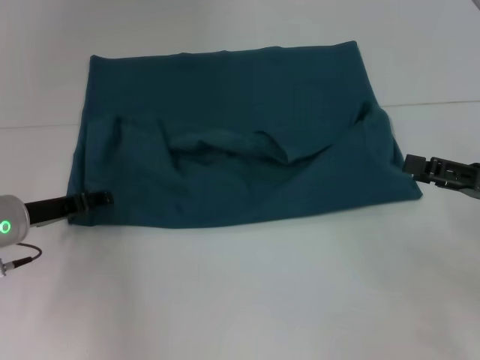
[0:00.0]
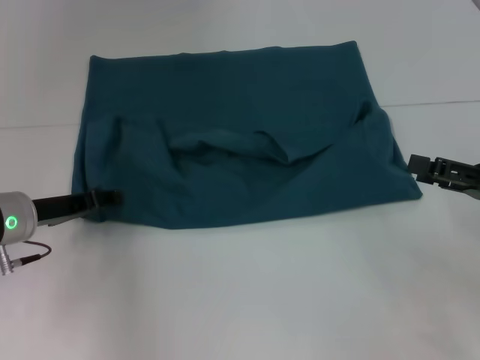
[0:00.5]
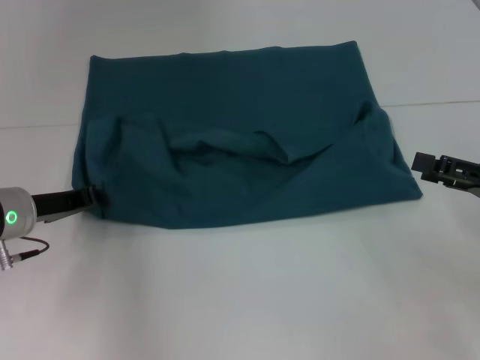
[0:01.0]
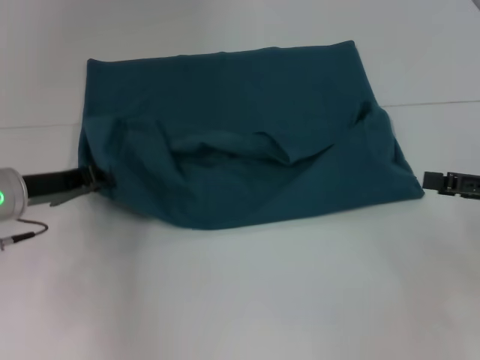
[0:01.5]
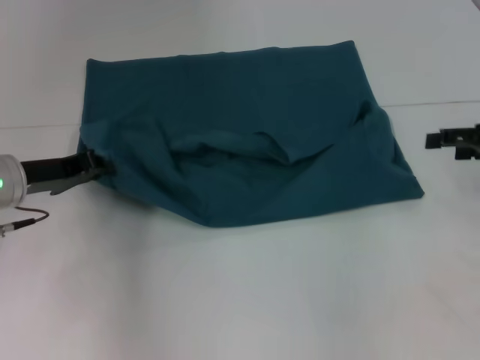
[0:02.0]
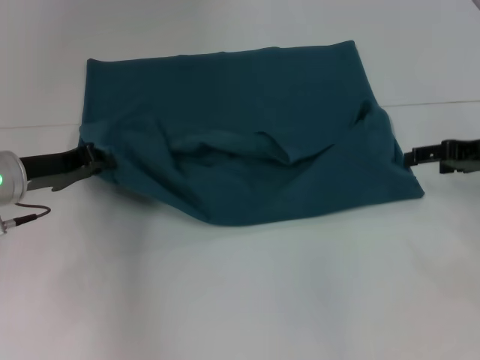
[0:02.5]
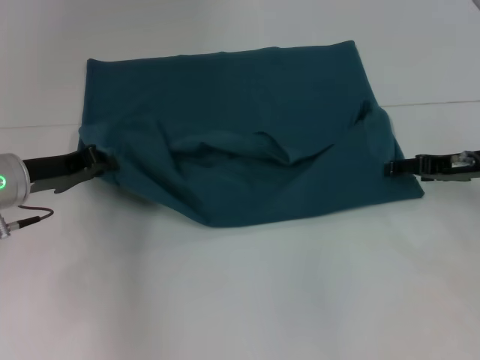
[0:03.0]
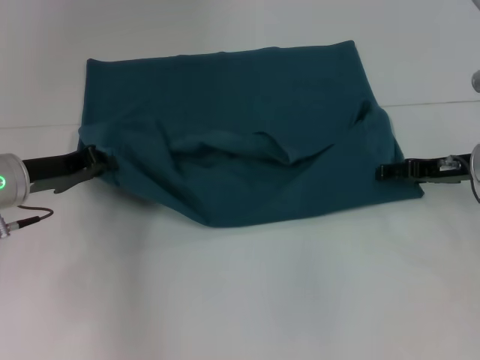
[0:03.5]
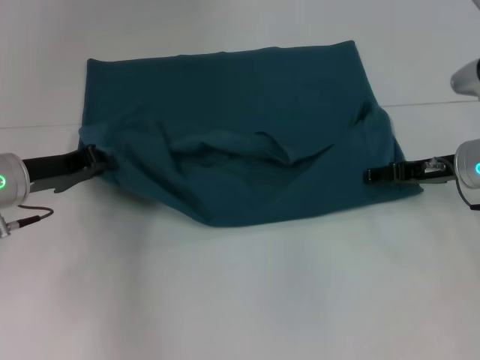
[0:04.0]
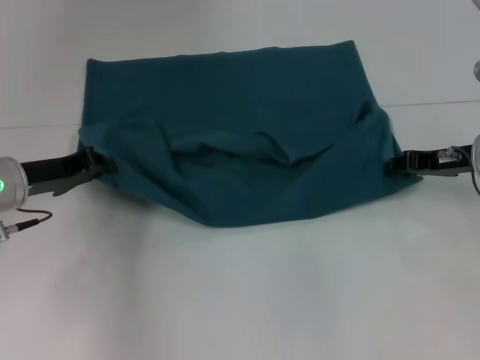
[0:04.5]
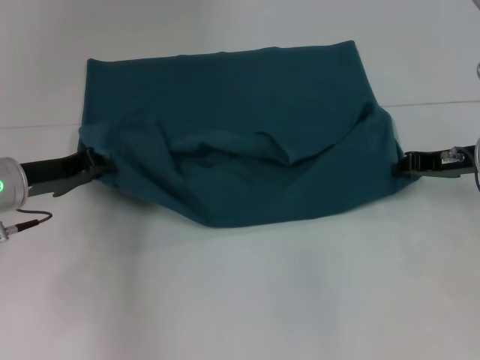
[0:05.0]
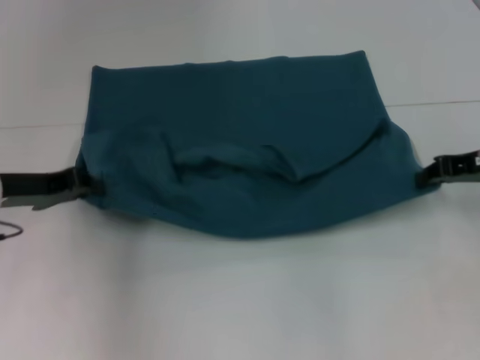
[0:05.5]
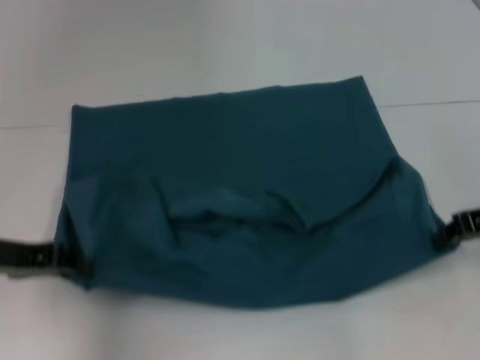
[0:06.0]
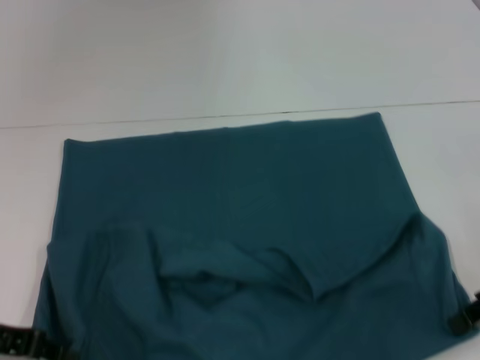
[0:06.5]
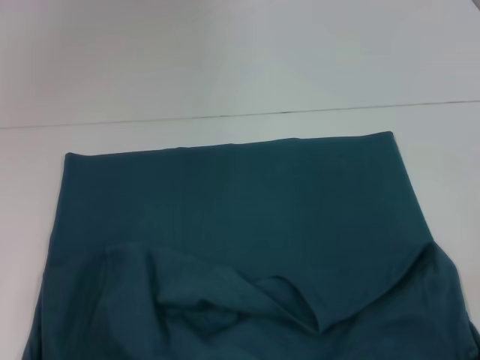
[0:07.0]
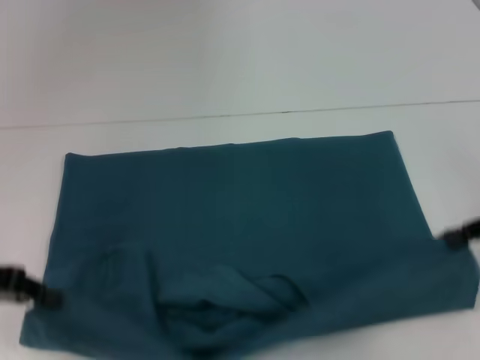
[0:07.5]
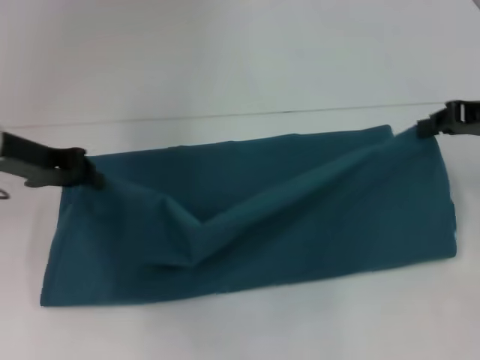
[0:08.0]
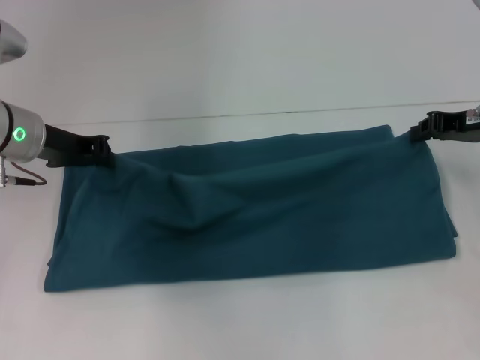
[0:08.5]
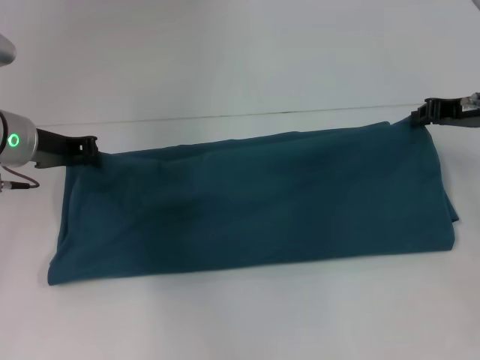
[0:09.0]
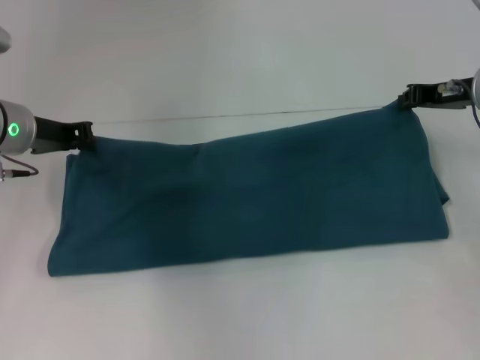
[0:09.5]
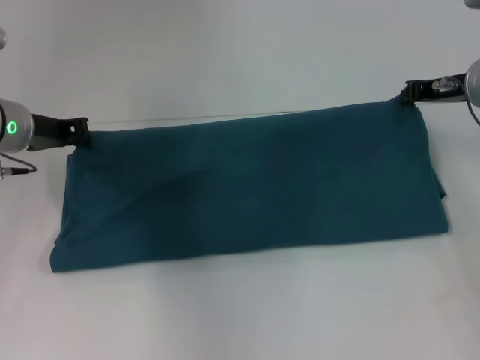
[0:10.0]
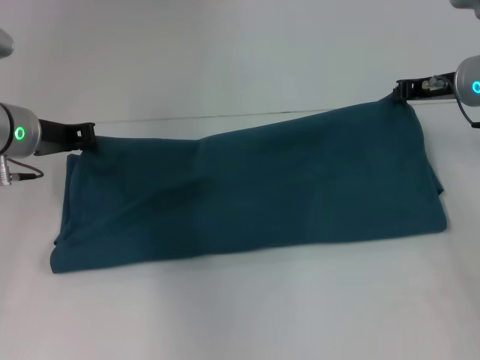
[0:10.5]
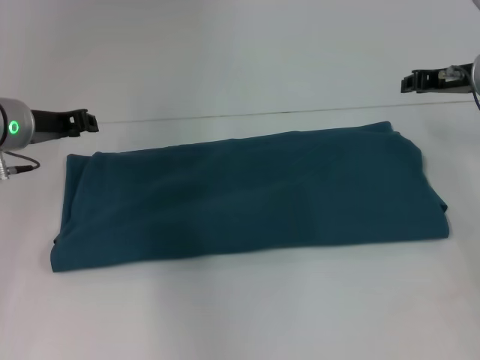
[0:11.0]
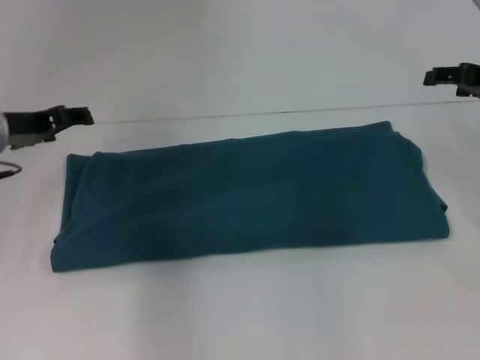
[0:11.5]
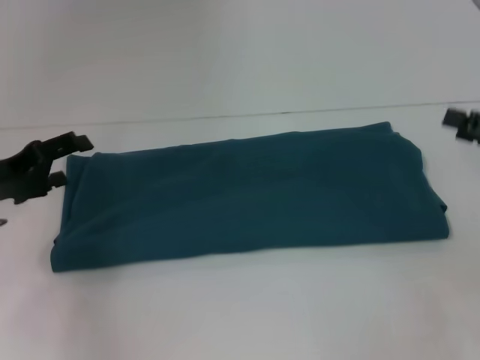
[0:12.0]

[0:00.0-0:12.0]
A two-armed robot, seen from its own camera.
Step, 0:00.0 to 0:06.5: Pull the clothes with your left hand.
Step, 0:00.0 to 0:06.5: Pull the clothes with your right hand.
Step, 0:07.0 to 0:10.5: Fold the clothes to the right.
0:00.0 to 0:02.0: The left gripper closes. The right gripper travels forward by approximately 10 cm.
0:02.0 to 0:04.0: The right gripper moves to the left and downward, some 10 cm.
0:04.0 to 0:06.0: The two grippers go roughly 5 cm backward. The right gripper closes its fingers.
0:06.0 to 0:08.0: The right gripper goes roughly 5 cm upward, and reaches some 10 cm backward, then returns. The left gripper is displaced forward by some 10 cm.
0:08.0 to 0:10.0: The left gripper shifts by some 5 cm. Meanwhile the right gripper goes roughly 5 cm forward.
0:10.0 to 0:12.0: The left gripper shifts some 10 cm backward and to the left, and opens. Meanwhile the right gripper goes roughly 20 cm backward and to the right, and opens.

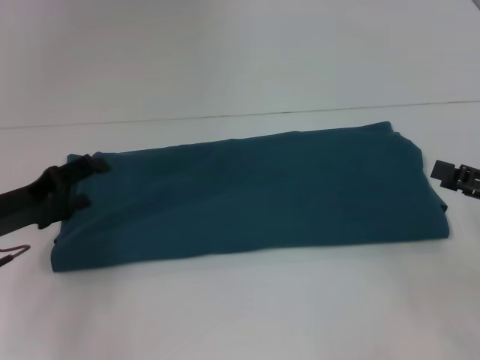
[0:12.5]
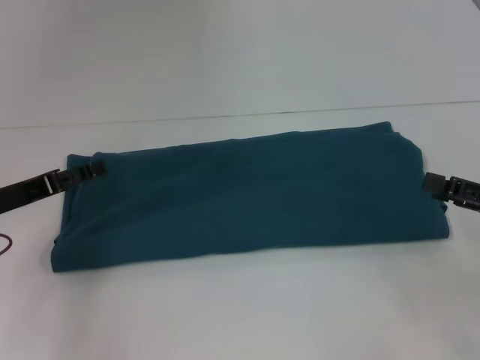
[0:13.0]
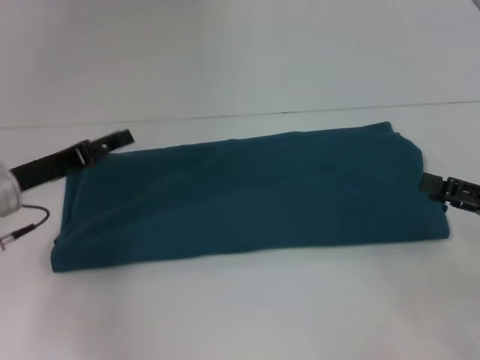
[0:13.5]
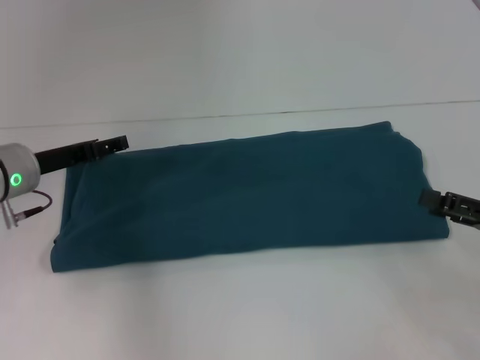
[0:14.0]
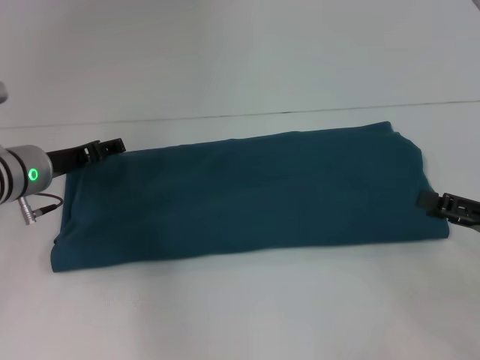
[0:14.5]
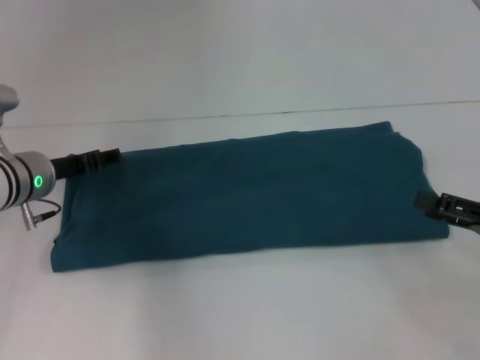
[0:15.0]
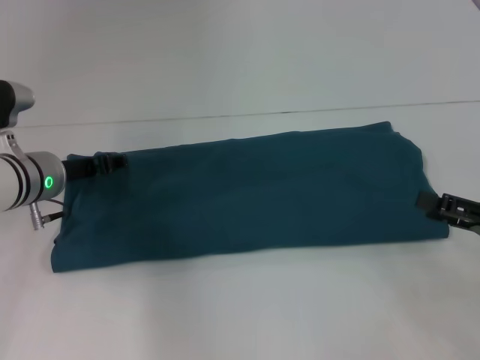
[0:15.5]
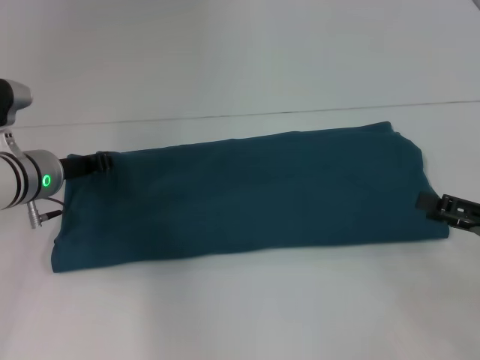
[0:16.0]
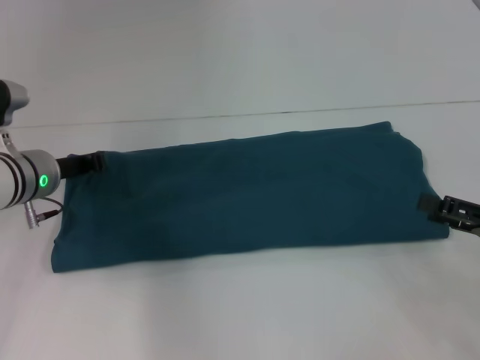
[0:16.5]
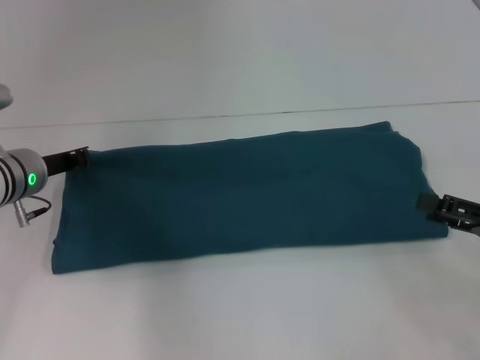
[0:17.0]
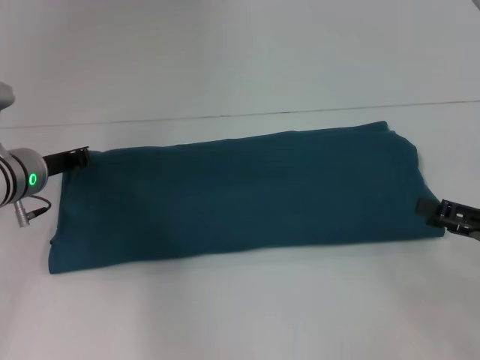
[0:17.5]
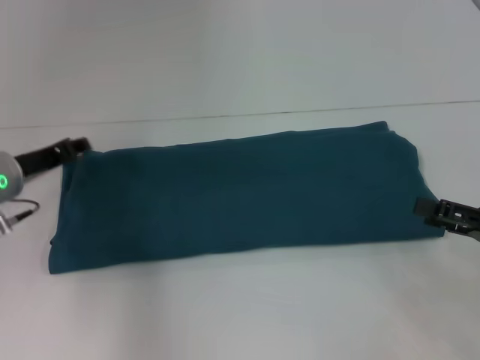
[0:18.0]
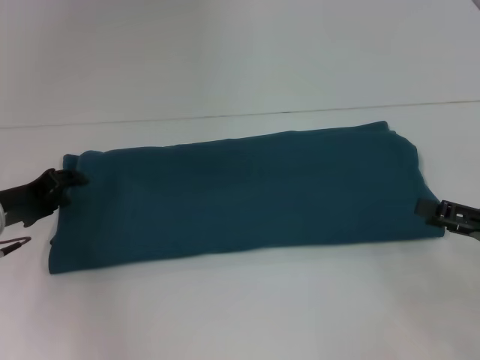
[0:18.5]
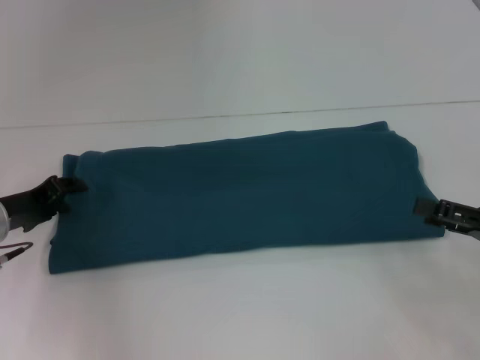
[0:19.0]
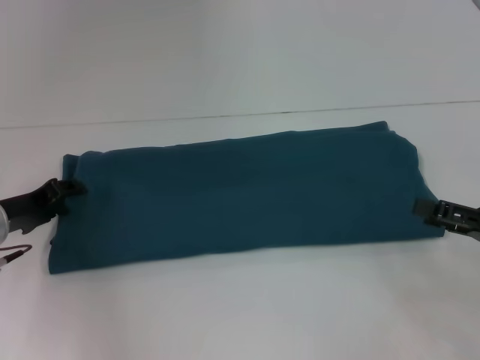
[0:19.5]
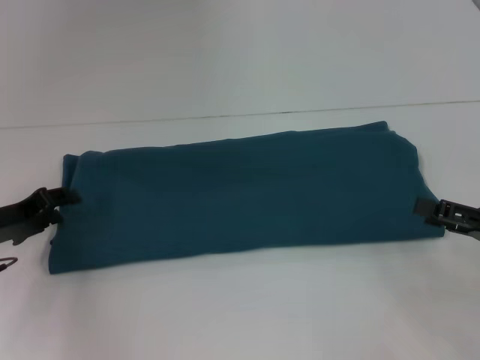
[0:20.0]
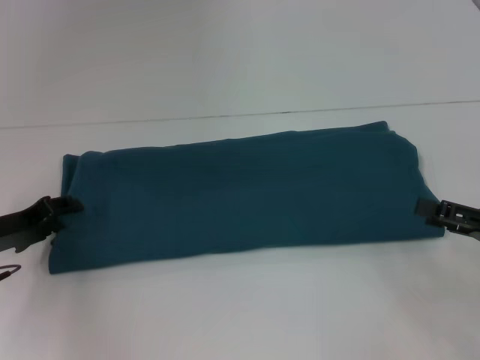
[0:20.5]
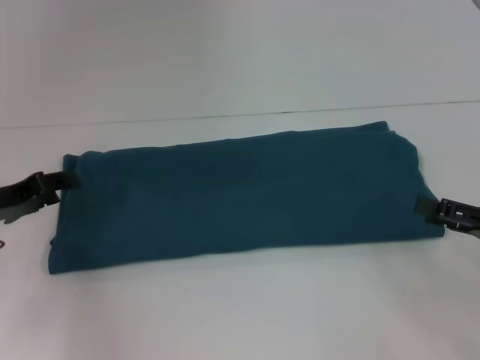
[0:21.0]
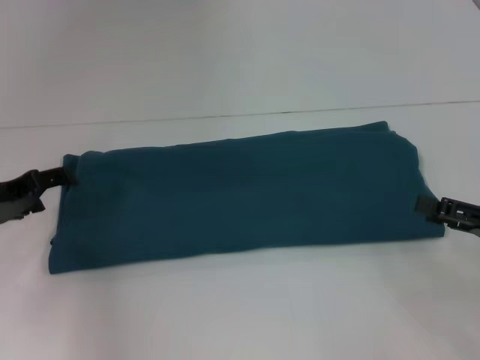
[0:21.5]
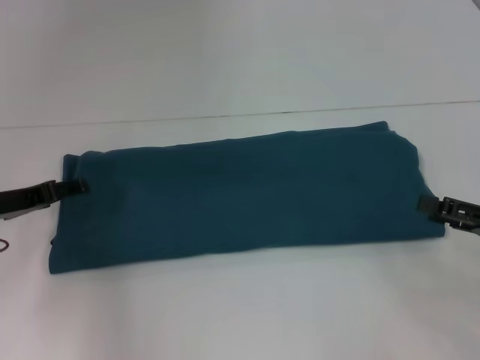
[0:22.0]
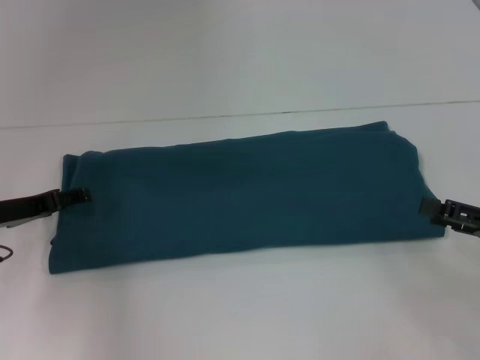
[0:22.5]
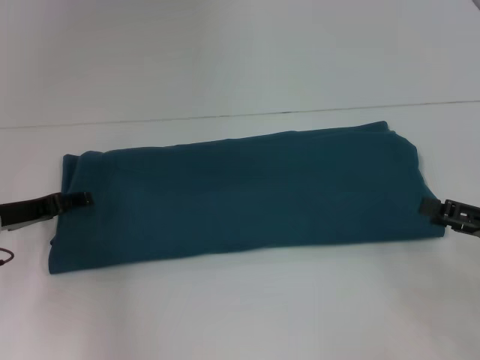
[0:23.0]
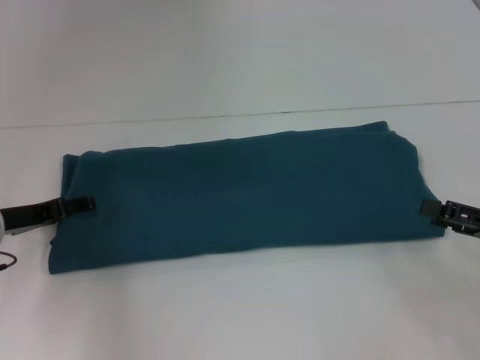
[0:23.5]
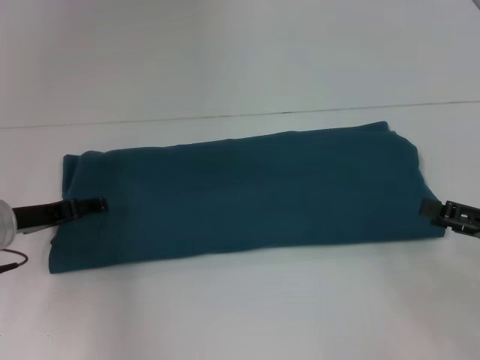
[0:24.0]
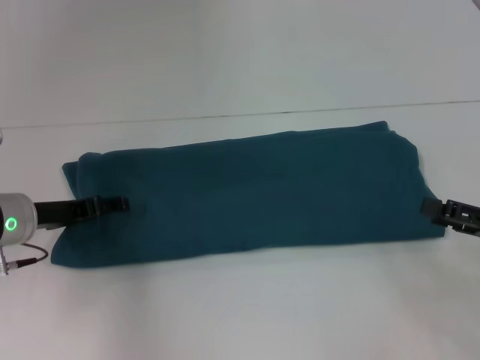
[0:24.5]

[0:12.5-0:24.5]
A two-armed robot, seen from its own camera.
0:12.5 to 0:14.5: The left gripper goes approximately 10 cm forward and to the right.
0:14.5 to 0:16.5: The left gripper closes its fingers.
0:16.5 to 0:18.5: The left gripper travels to the left and backward by some 10 cm, and opens its fingers.
0:18.5 to 0:20.5: There are only small adjustments of the grippers.
0:20.5 to 0:22.5: The left gripper opens.
0:22.5 to 0:24.5: The grippers make only small movements.

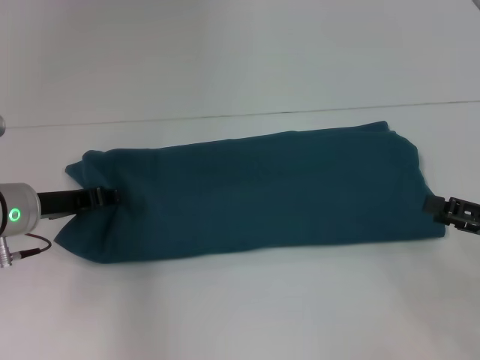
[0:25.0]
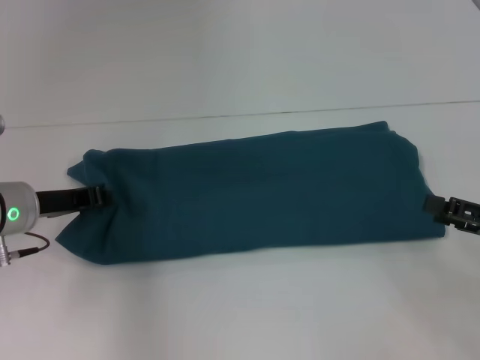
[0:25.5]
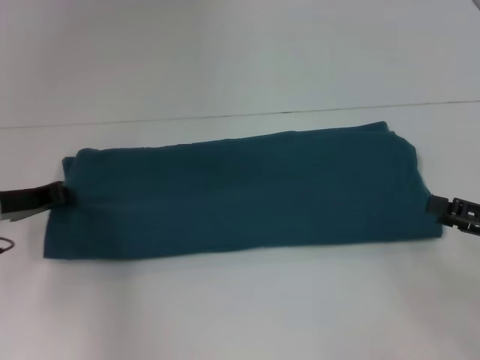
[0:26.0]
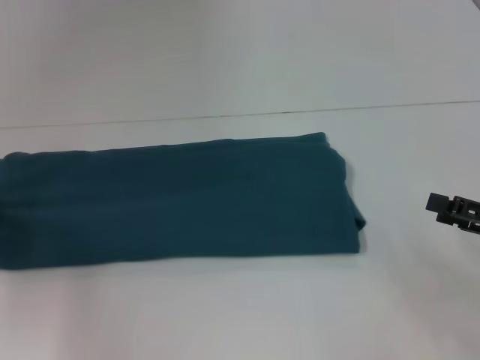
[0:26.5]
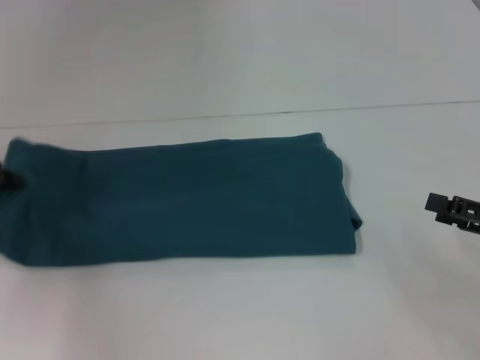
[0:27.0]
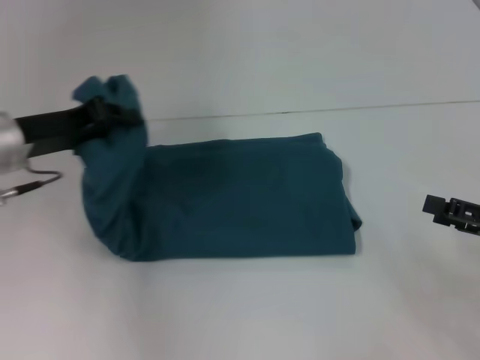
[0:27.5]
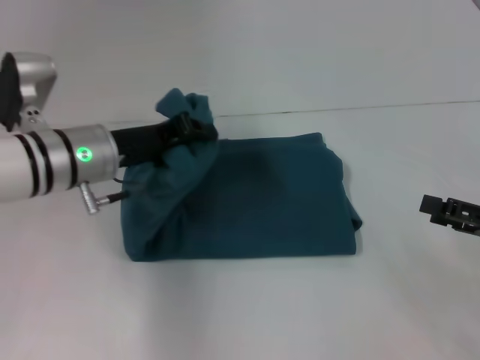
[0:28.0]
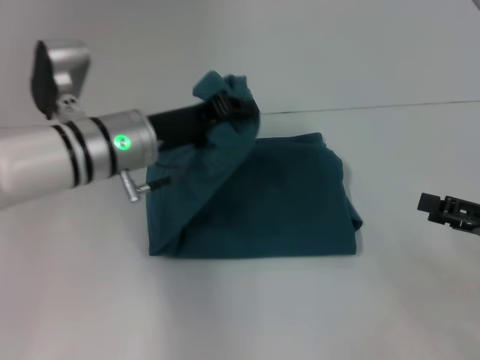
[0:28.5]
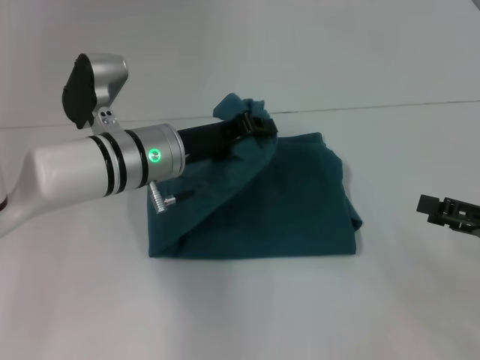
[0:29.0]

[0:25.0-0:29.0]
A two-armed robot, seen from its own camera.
0:25.0 to 0:27.0: The left gripper goes approximately 10 cm to the left, and closes.
0:27.0 to 0:29.0: The left gripper shifts roughly 25 cm to the right.
